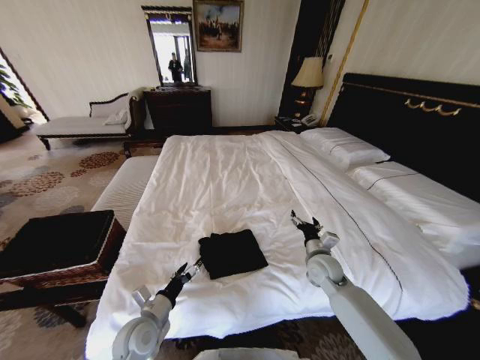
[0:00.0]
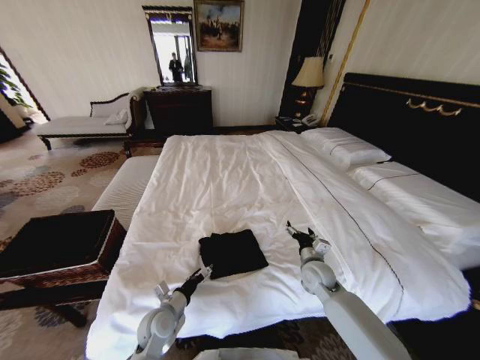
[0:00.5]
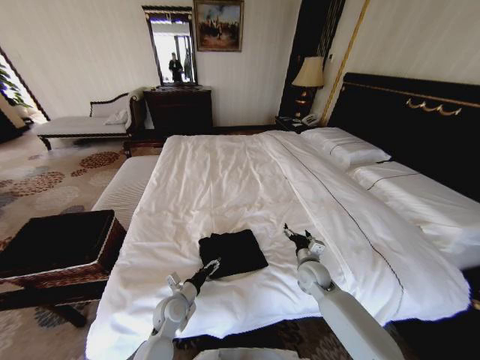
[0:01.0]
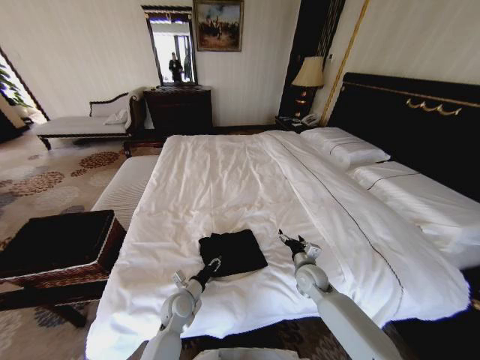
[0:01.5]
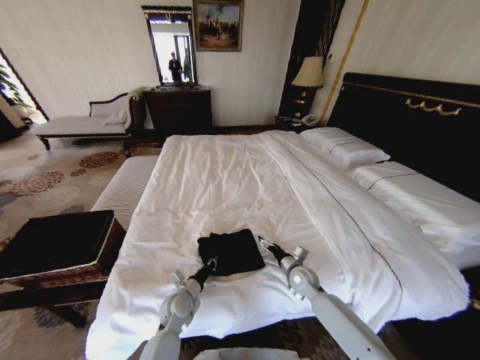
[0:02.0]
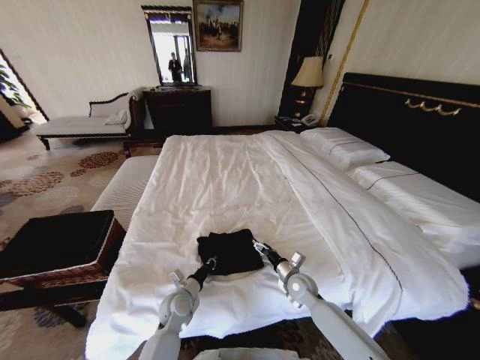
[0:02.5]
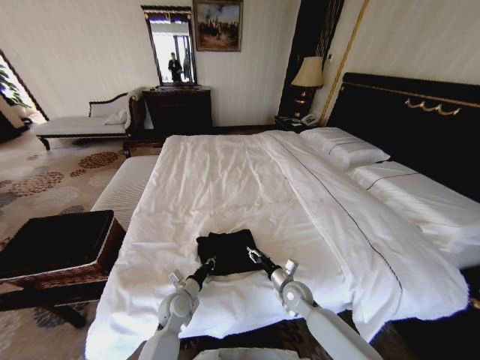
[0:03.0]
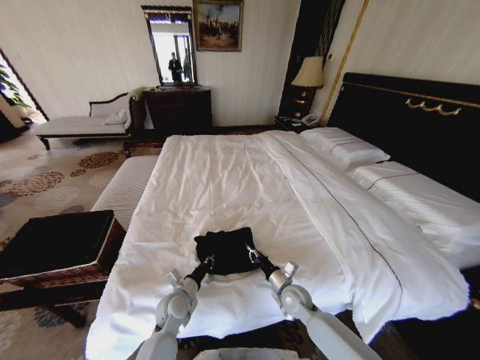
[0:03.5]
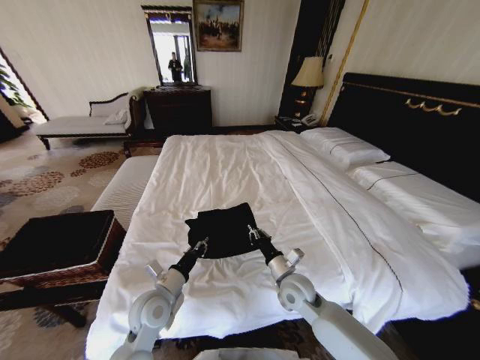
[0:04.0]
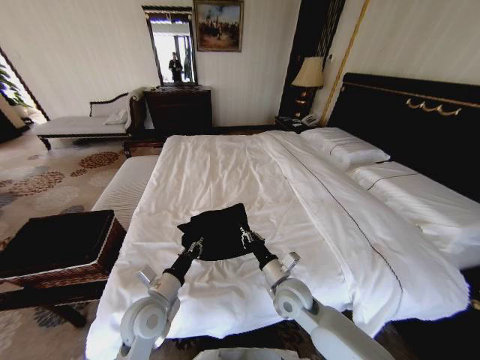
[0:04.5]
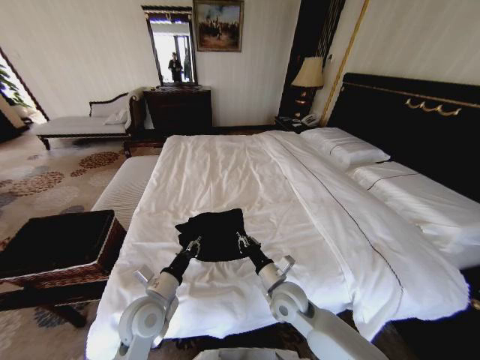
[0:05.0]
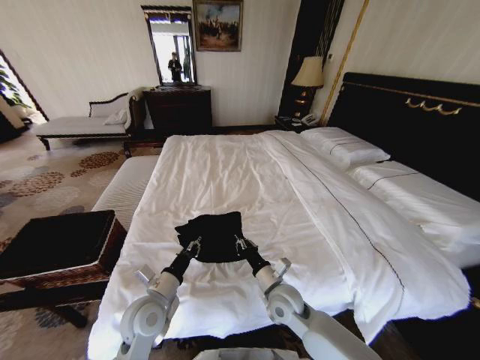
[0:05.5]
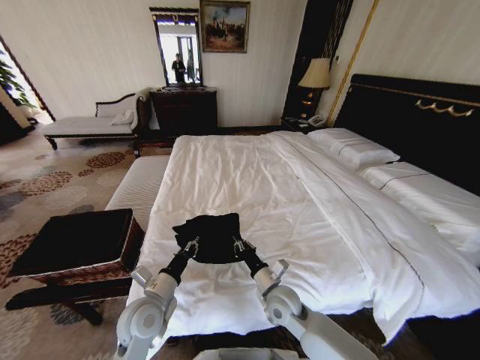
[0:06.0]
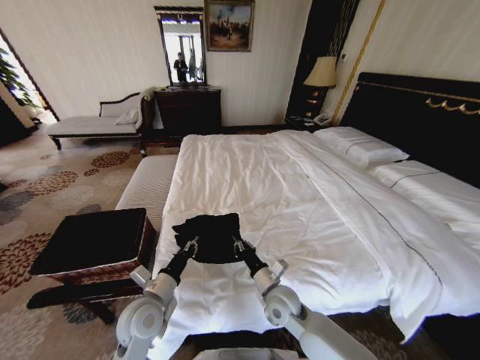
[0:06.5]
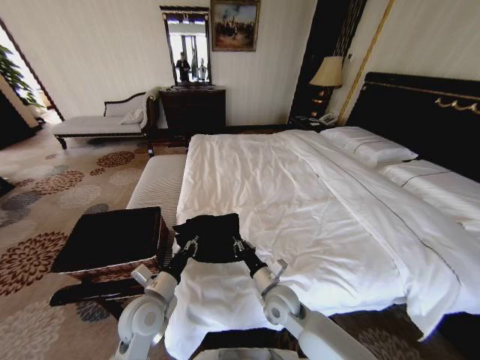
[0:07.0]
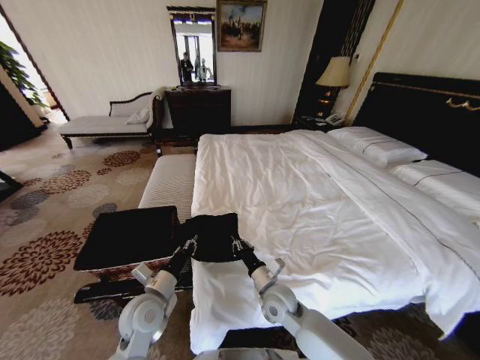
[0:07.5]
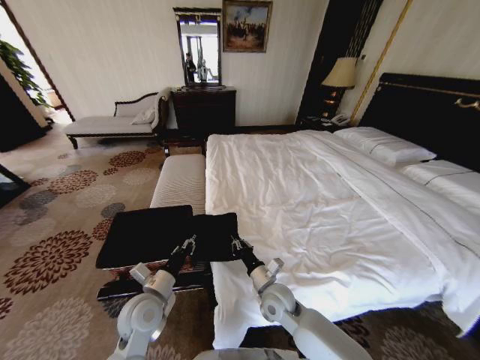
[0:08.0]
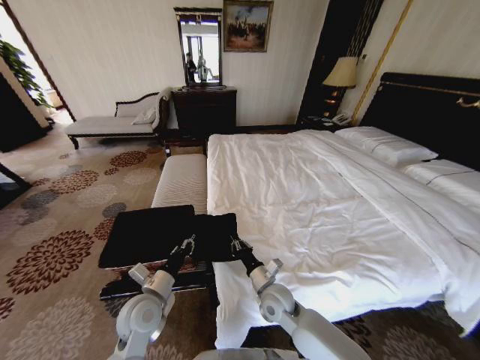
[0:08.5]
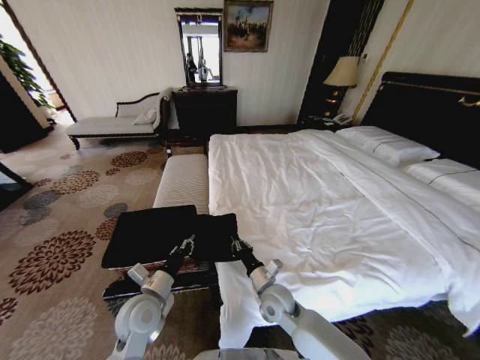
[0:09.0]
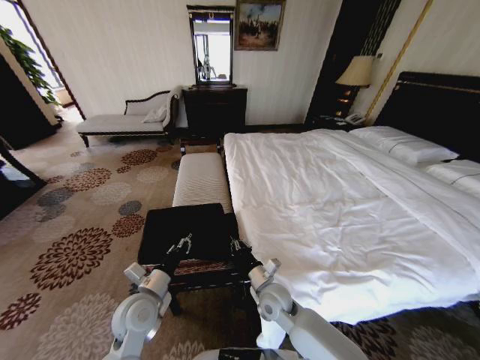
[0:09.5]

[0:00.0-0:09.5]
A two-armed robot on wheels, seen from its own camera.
Task of the whole recording: Fold the clothes on the bed and place them into the basket.
0:00.0 to 0:02.0: The right gripper goes some 10 cm downward; the left gripper travels forward, downward and to the right by about 15 cm, and closes its fingers.
0:02.0 to 0:04.0: The left gripper goes about 10 cm upward. Meanwhile the right gripper heads upward, to the left and backward, covering about 10 cm, and closes its fingers.
0:04.0 to 0:05.5: The right gripper changes place by some 5 cm.

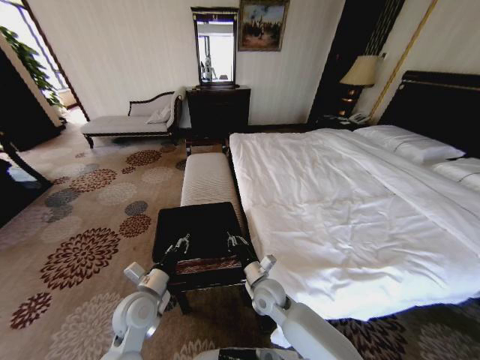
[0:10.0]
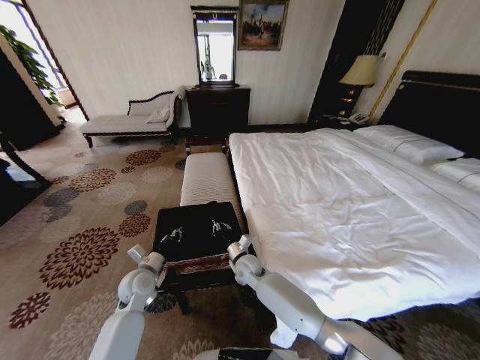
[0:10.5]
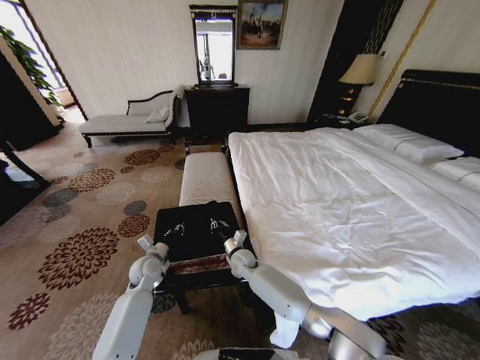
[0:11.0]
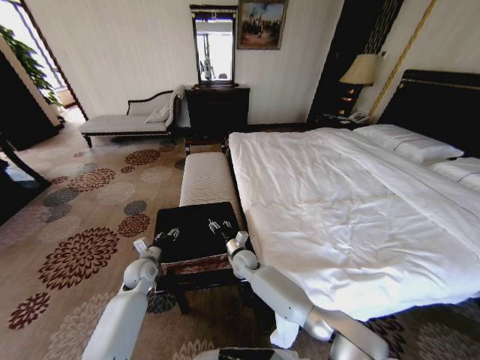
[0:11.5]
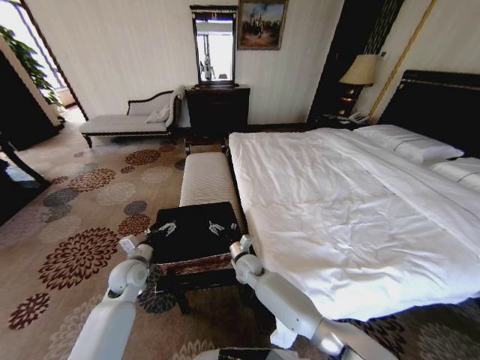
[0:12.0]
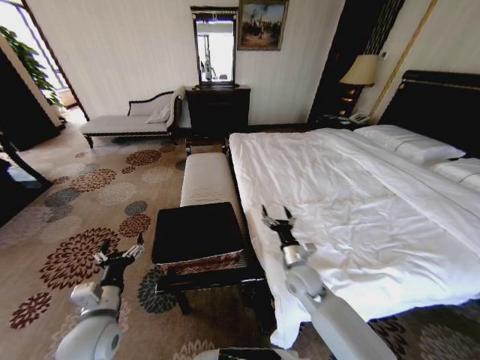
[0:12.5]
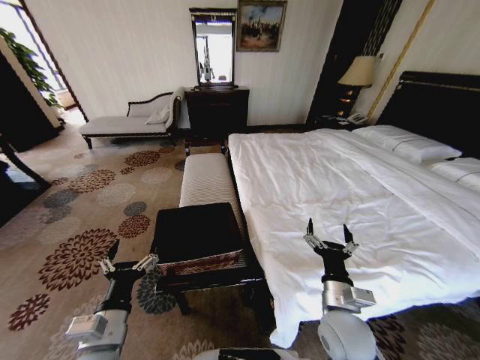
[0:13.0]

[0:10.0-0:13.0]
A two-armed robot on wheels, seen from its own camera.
Task of the whole recording: Fold the clothes on the bed and place them into the basket.
0:10.0 to 0:11.5: The right gripper moves forward and to the left, approximately 15 cm, and opens up, while the left gripper is displaced forward, downward and to the left by some 15 cm, and opens up.
0:11.5 to 0:13.0: The right gripper travels backward, to the right and upward by some 35 cm, and opens up. Meanwhile the left gripper travels backward and upward by roughly 30 cm, and opens.
